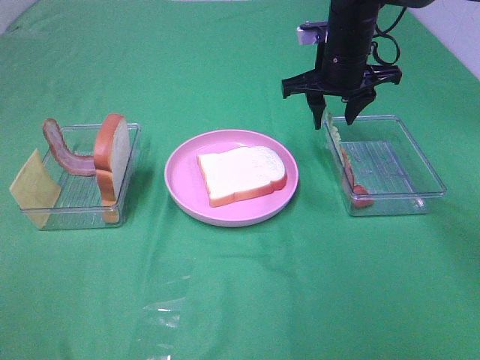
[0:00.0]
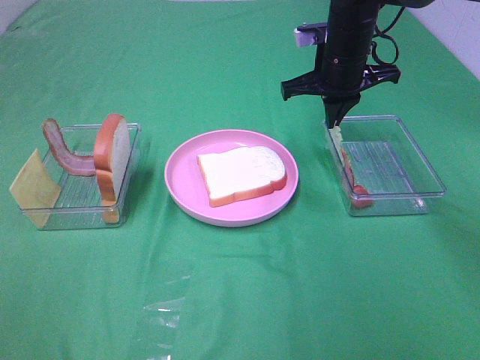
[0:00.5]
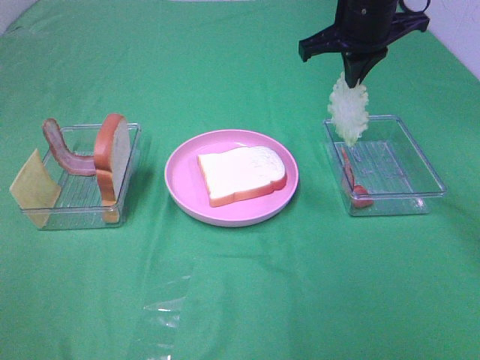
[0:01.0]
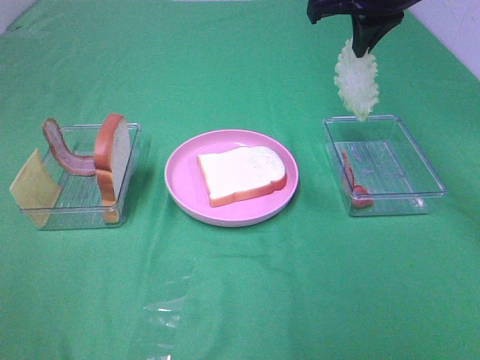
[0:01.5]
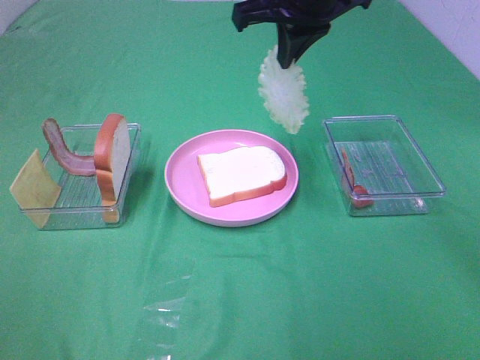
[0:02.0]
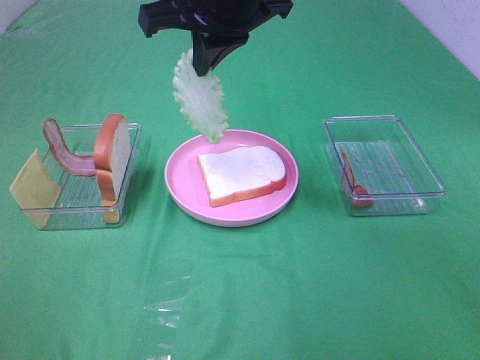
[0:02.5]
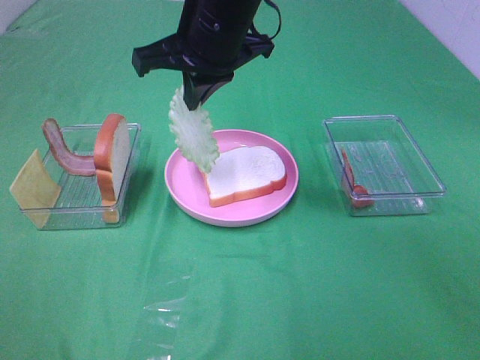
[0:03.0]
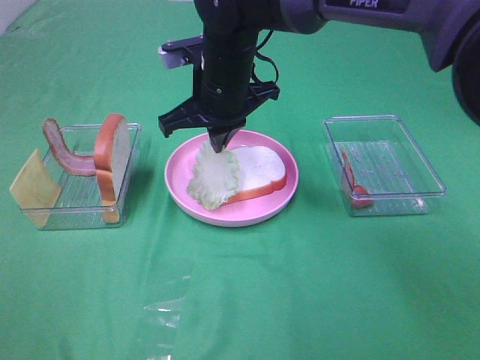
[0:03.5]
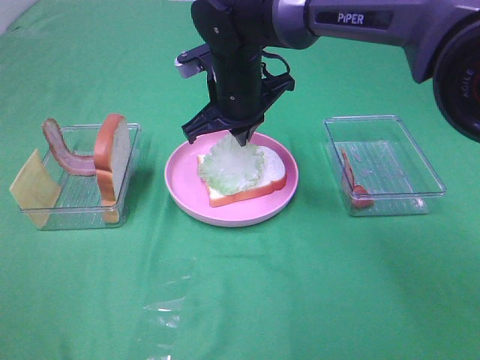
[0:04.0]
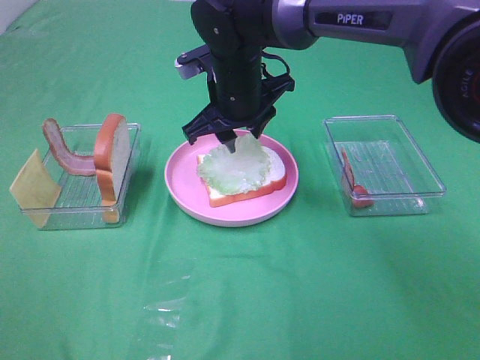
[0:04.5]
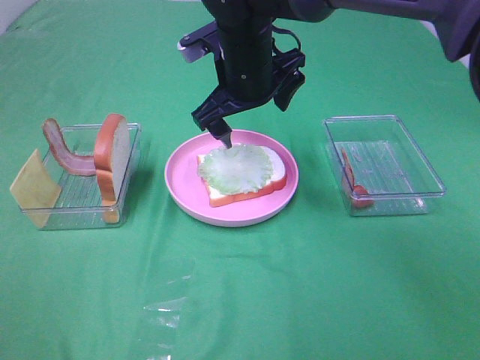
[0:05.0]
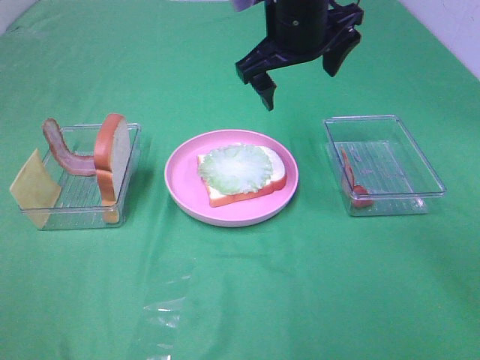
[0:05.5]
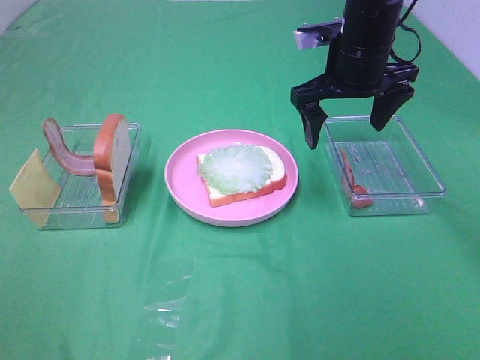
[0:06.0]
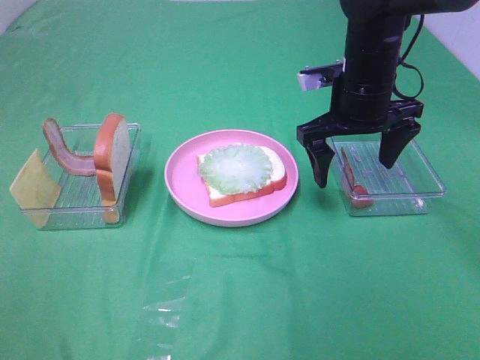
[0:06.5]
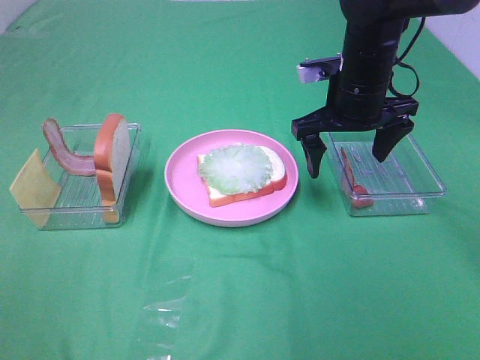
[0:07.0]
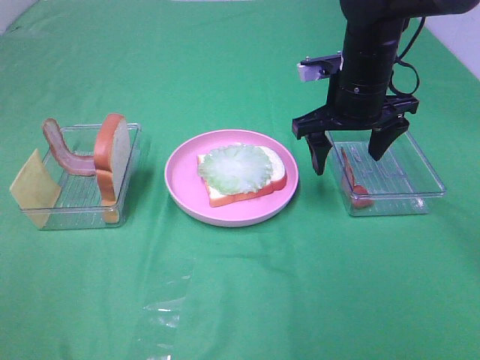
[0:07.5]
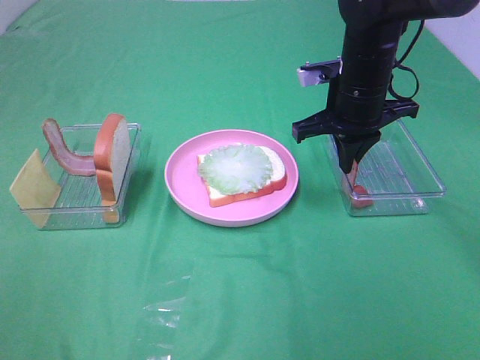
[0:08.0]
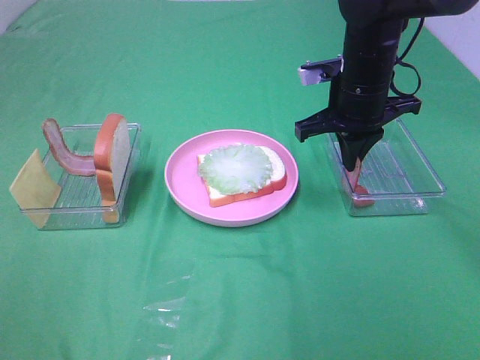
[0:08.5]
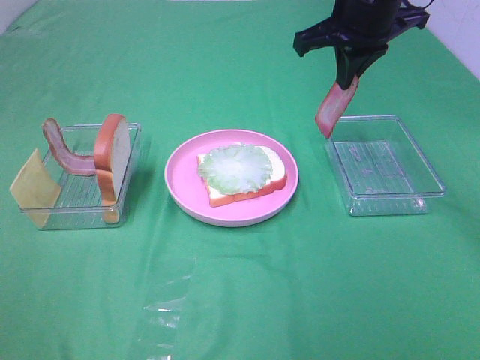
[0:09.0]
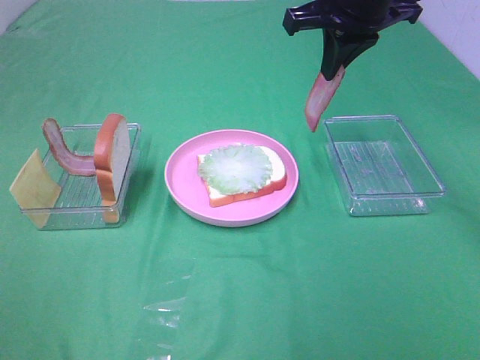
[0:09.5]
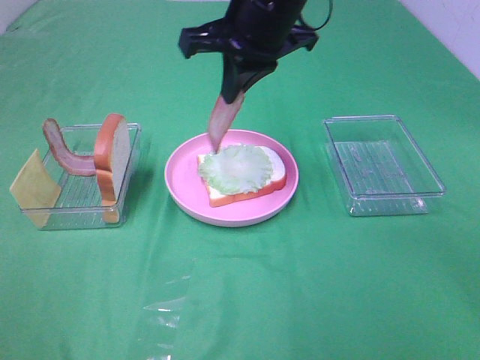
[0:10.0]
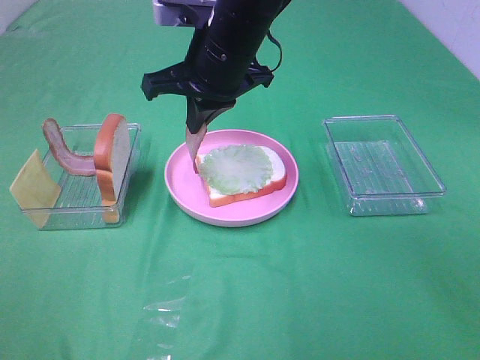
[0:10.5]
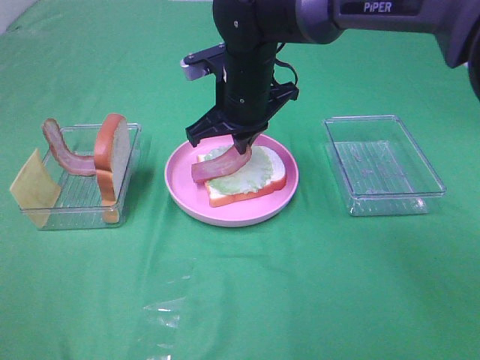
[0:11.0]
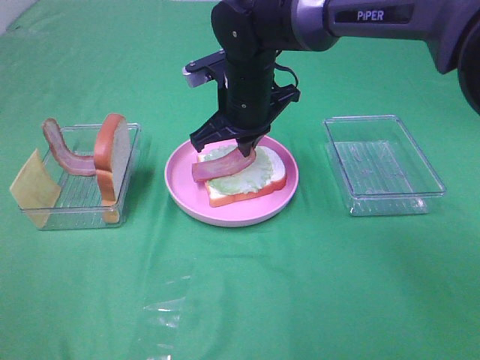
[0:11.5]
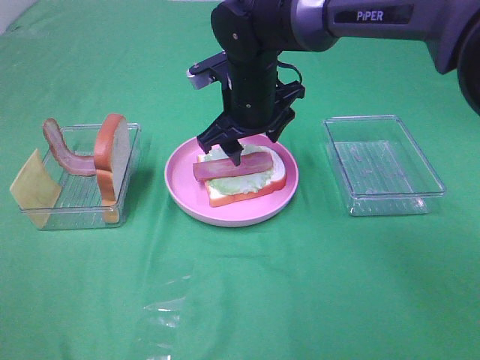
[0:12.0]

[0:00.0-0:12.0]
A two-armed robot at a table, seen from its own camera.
Task of the whole recording: Make sandwiches.
Step, 0:01.0 to 0:04.5: Right hand:place the lettuce slice on the bread slice.
Step, 0:05.0 to 0:08.0: Right hand:grab the bacon.
Step, 0:08.5 to 0:12.0: Right hand:place bacon on lettuce slice.
0:00.0 to 0:02.0: The right gripper is displaced upward, to the left and backward by approximately 15 cm, and closes its fingers.
0:02.0 to 0:04.0: The right gripper goes about 15 cm downward and to the left.
0:04.0 to 0:06.0: The right gripper is displaced to the right by roughly 15 cm, and opens up.
0:06.0 to 0:08.0: The right gripper closes up.
0:08.0 to 0:10.0: The right gripper goes roughly 15 cm to the left and upward.
0:10.0 to 0:12.0: The right gripper shifts roughly 10 cm downward, and opens its fingers.

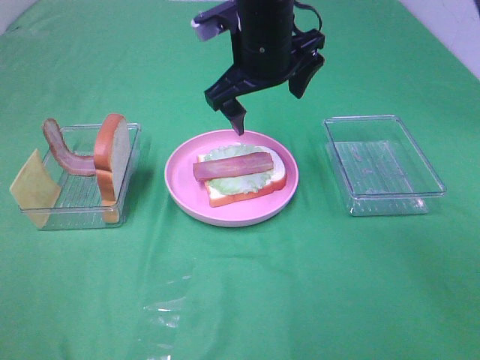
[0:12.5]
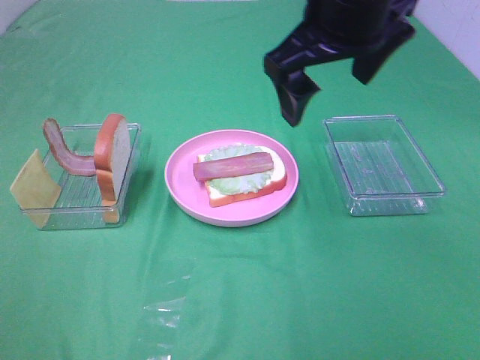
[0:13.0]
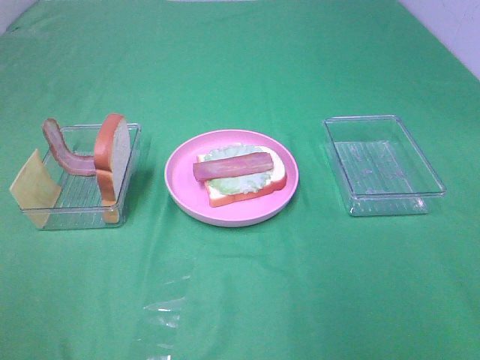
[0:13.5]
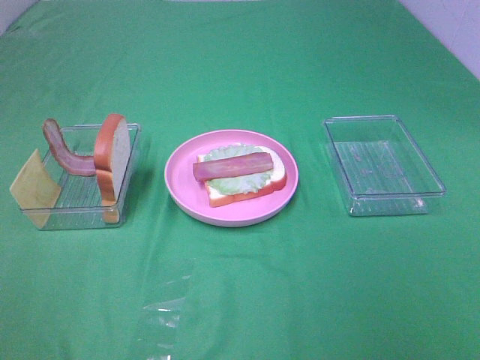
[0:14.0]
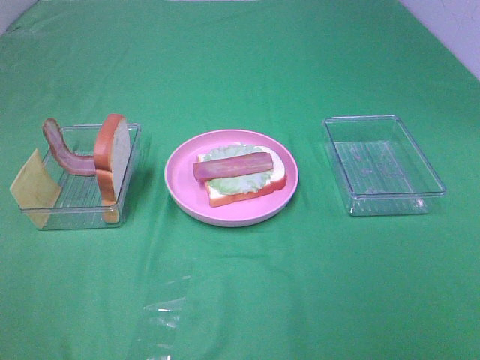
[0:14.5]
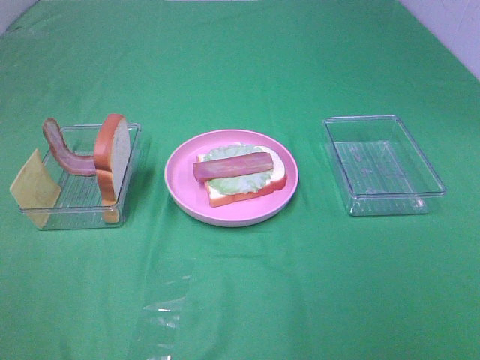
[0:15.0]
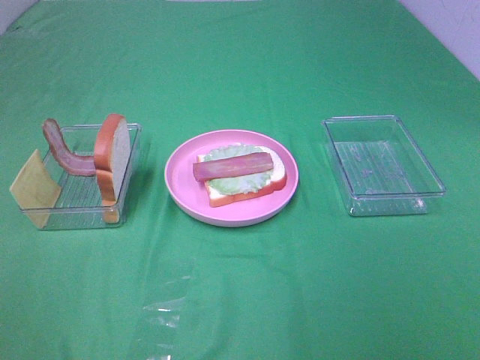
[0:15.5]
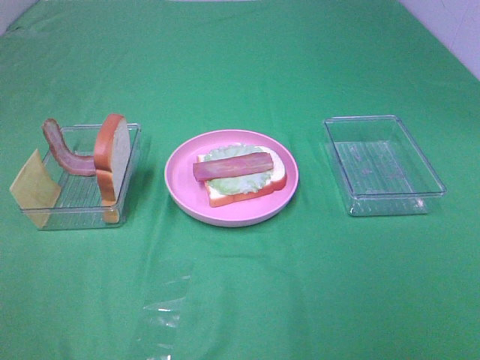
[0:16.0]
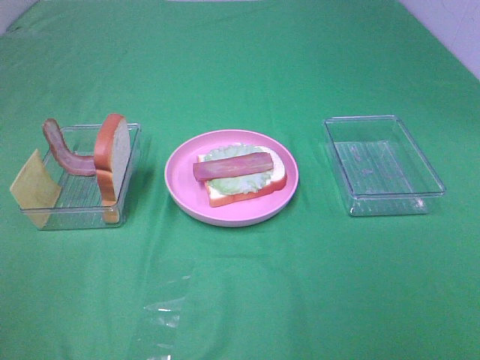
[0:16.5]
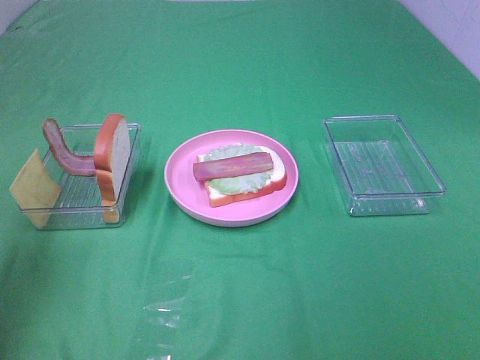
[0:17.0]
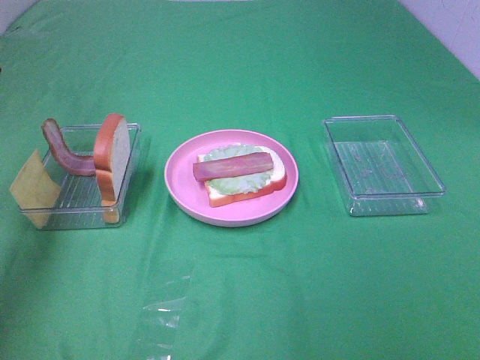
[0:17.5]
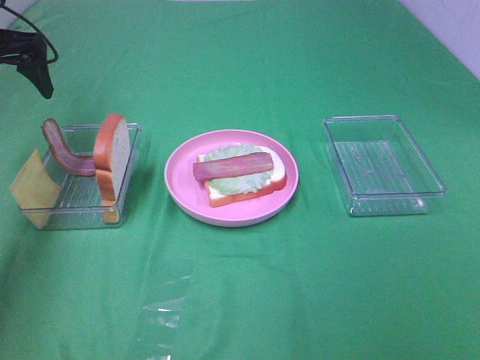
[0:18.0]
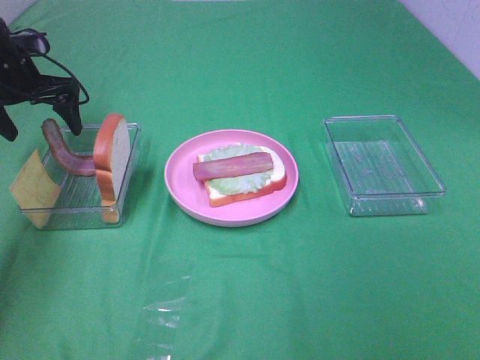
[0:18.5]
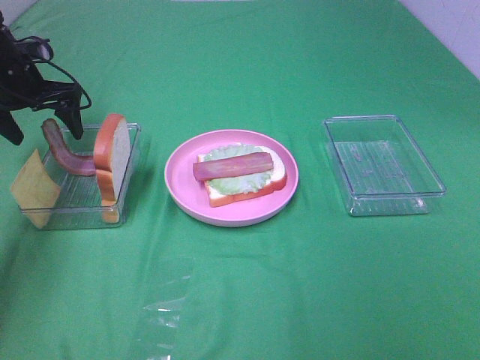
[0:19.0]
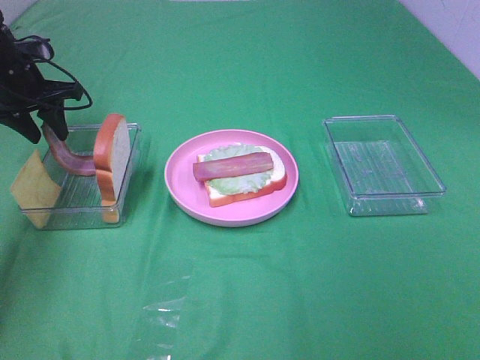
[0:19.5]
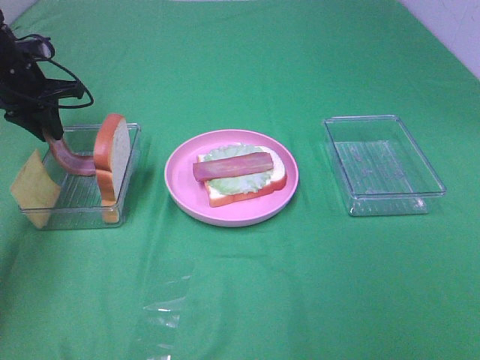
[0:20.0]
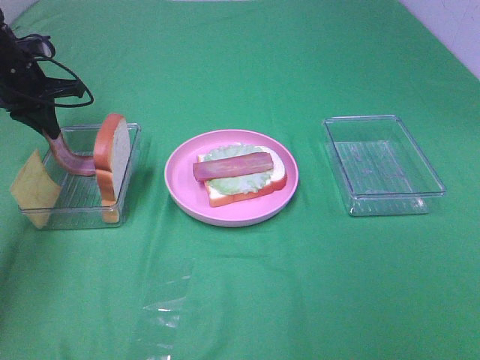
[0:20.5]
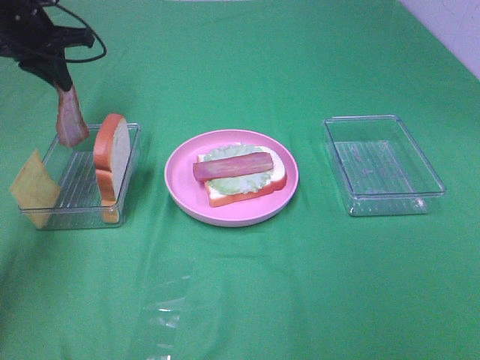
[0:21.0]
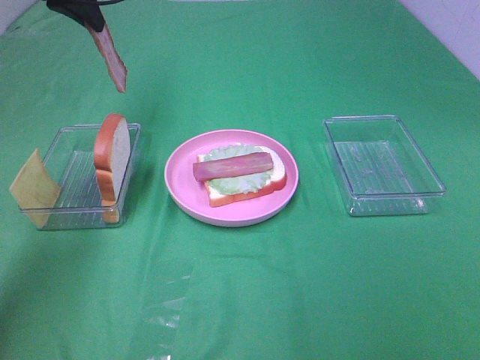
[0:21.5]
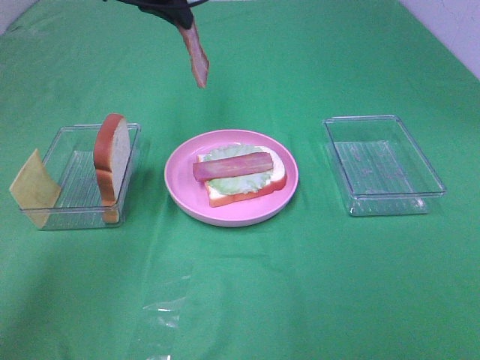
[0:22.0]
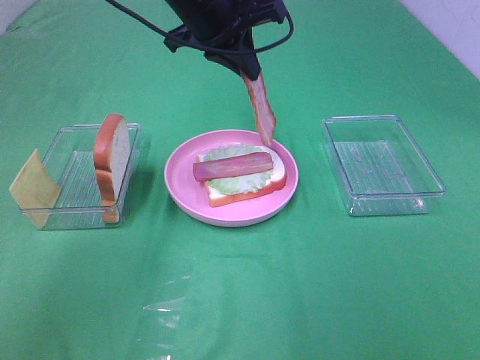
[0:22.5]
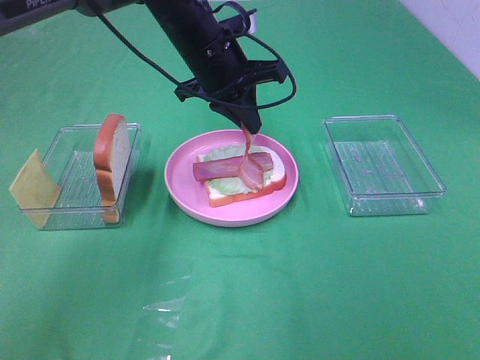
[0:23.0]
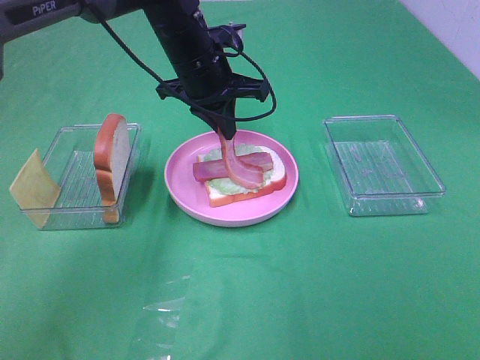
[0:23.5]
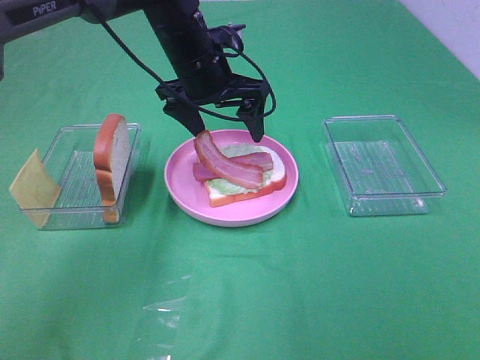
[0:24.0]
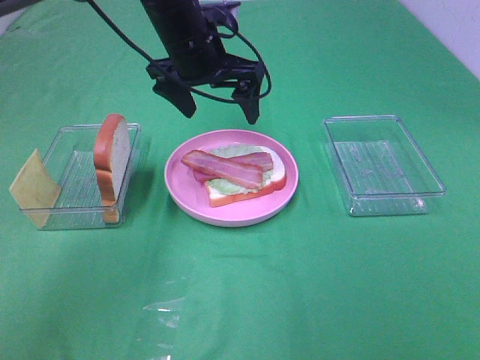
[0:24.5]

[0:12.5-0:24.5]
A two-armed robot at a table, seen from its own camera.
Task of the whole recording: Make sandwiches.
Step, 0:12.5 to 0:20.0: Left hand:grab the bacon.
Step, 0:20.5 to 0:24.0: Left hand:place bacon on bacon.
0:12.5 to 0:14.5: The right gripper is displaced backward and to the right by about 50 cm.
0:16.5 to 0:18.5: The left gripper heads forward, covering some 40 cm.
0:18.5 to 0:20.5: The left gripper closes.
0:20.5 to 0:22.5: The left gripper travels to the right and upward by some 30 cm.
0:22.5 to 0:24.5: The left gripper opens its fingers.

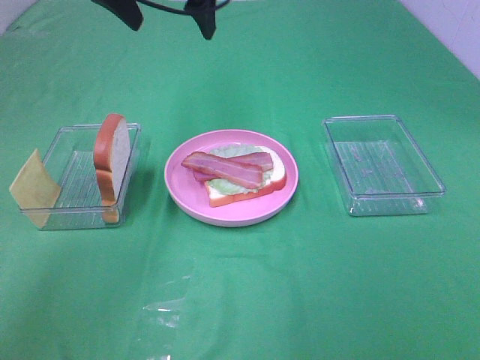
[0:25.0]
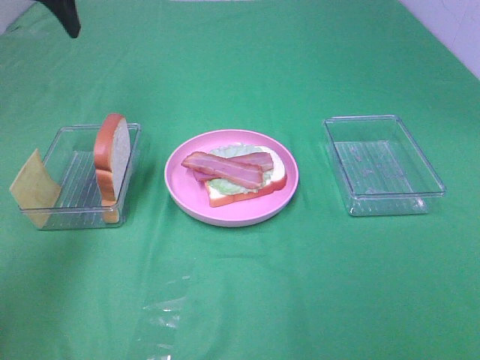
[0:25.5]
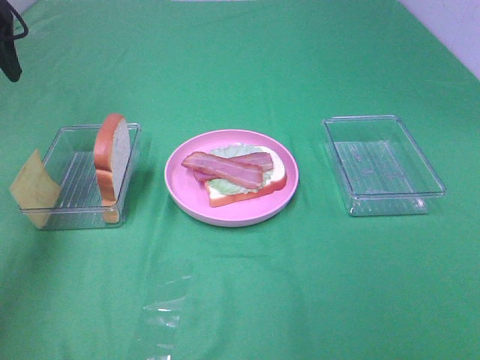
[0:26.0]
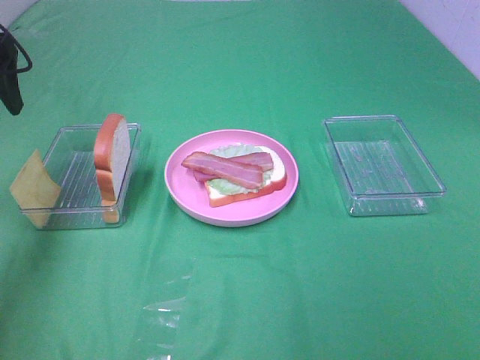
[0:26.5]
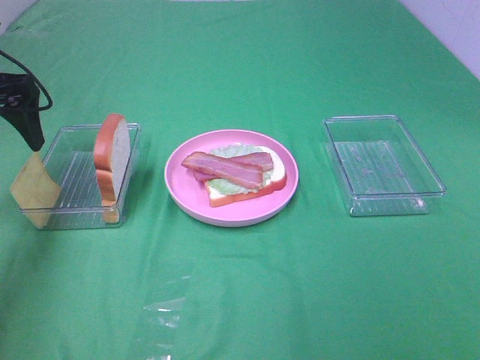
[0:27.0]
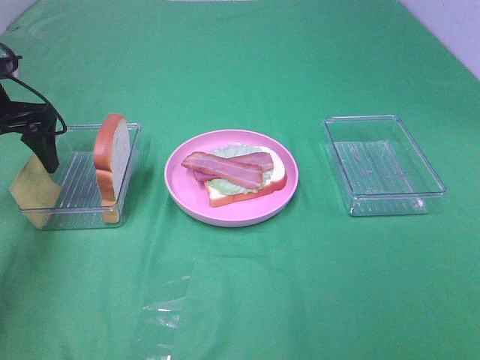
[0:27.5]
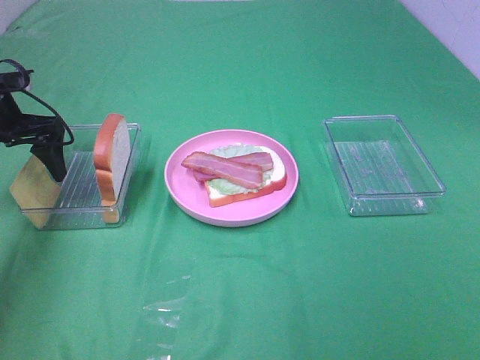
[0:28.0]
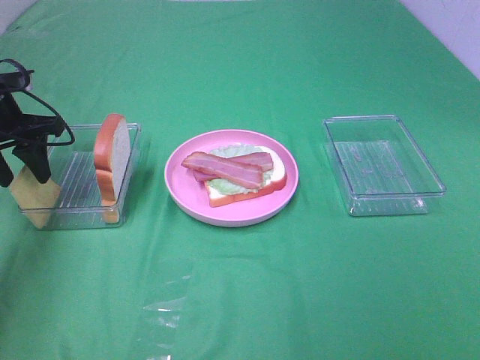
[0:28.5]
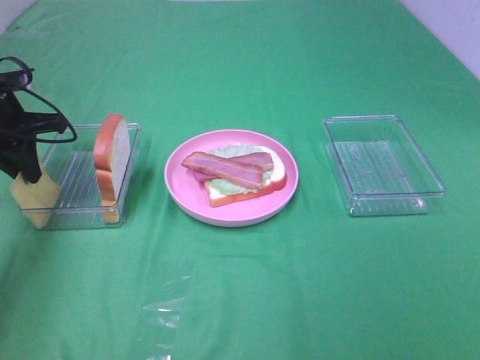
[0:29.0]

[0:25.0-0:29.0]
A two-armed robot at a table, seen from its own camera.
Task of the whole recording: Make sandwiches.
0:25.0 to 0:27.0: The left gripper shifts about 20 cm to the left and downward.
0:27.0 to 0:29.0: The left gripper goes roughly 5 cm downward, and closes.
